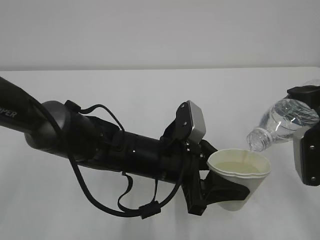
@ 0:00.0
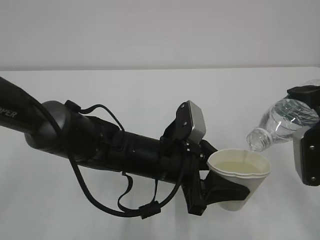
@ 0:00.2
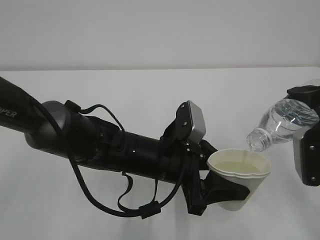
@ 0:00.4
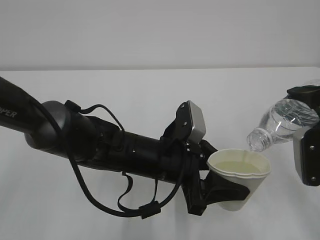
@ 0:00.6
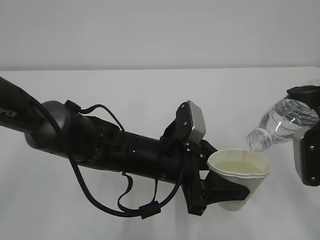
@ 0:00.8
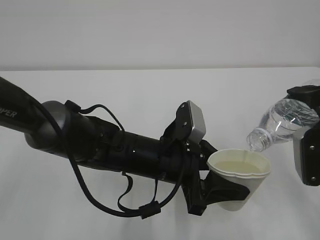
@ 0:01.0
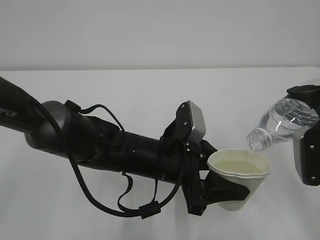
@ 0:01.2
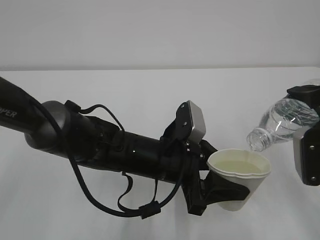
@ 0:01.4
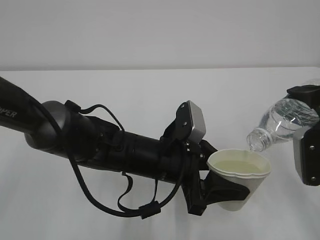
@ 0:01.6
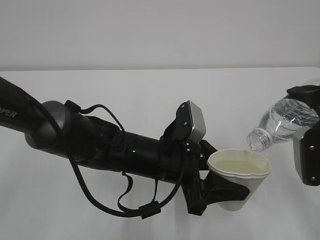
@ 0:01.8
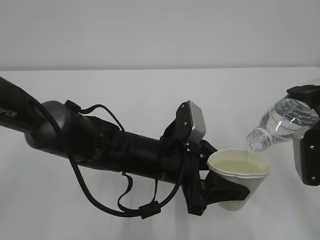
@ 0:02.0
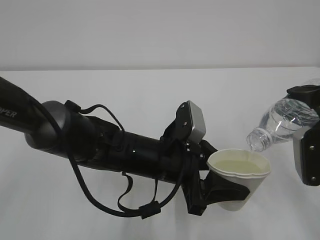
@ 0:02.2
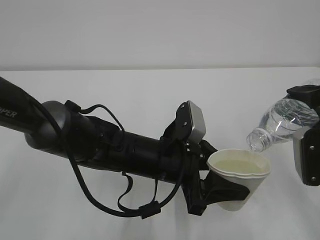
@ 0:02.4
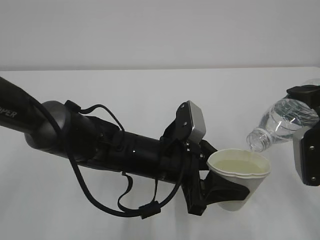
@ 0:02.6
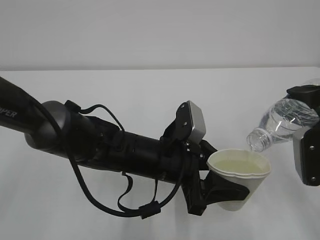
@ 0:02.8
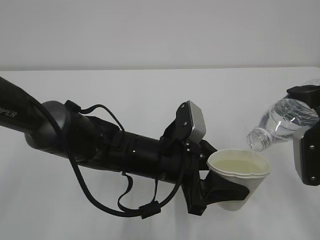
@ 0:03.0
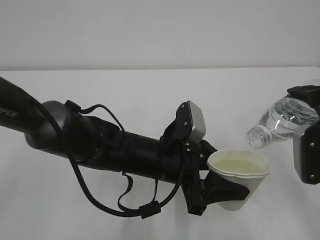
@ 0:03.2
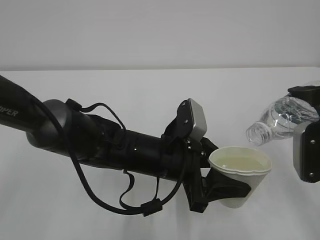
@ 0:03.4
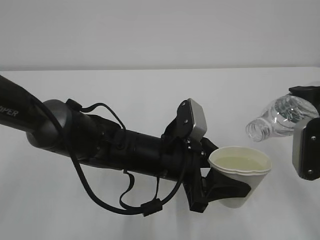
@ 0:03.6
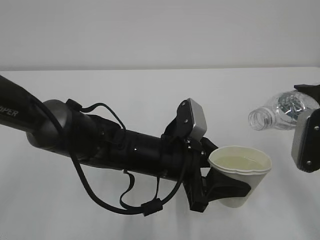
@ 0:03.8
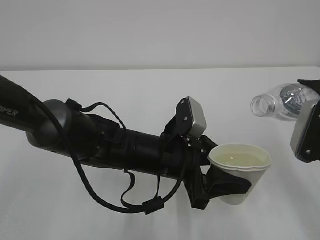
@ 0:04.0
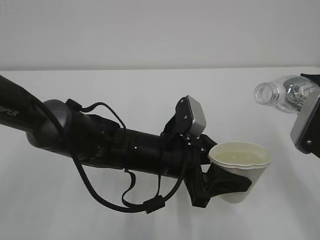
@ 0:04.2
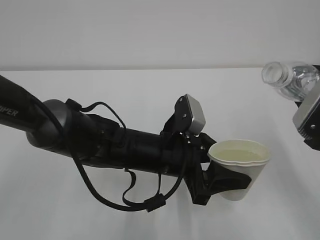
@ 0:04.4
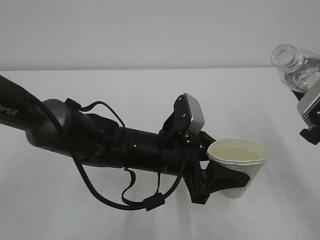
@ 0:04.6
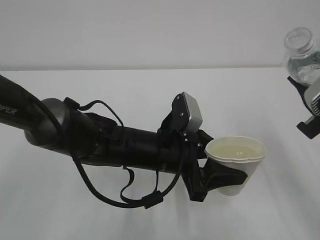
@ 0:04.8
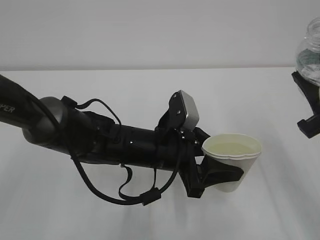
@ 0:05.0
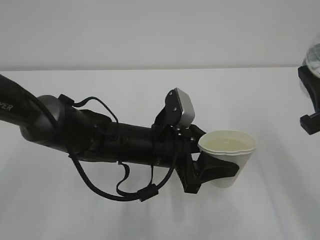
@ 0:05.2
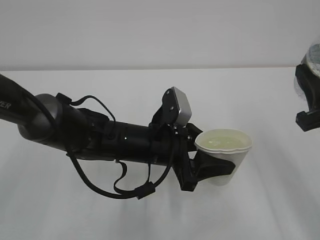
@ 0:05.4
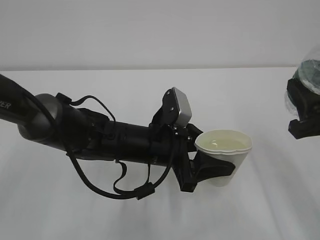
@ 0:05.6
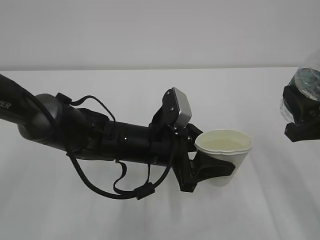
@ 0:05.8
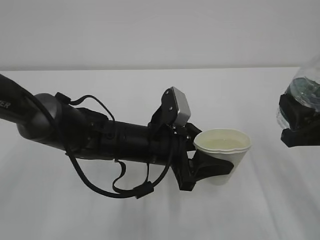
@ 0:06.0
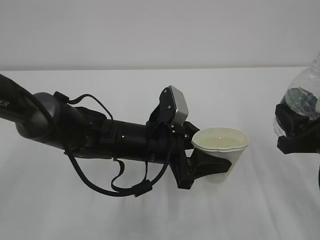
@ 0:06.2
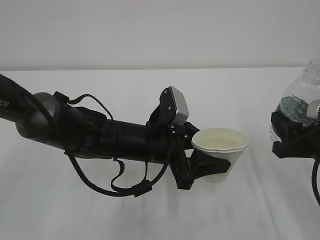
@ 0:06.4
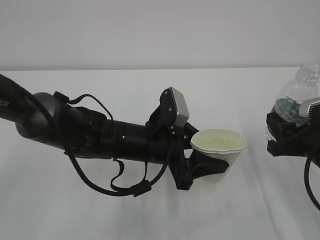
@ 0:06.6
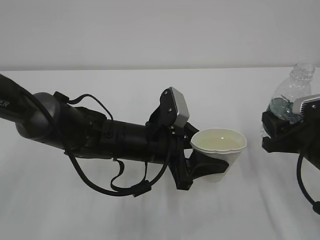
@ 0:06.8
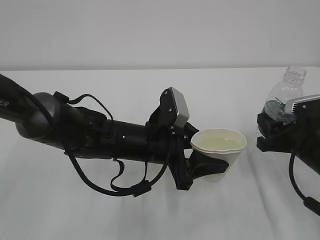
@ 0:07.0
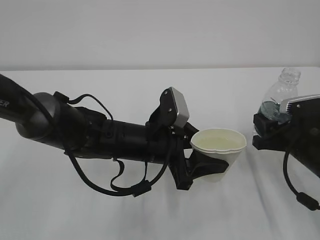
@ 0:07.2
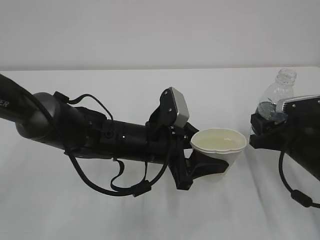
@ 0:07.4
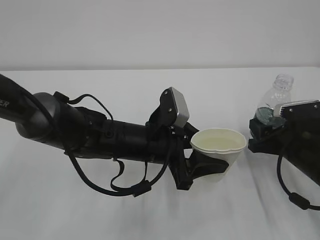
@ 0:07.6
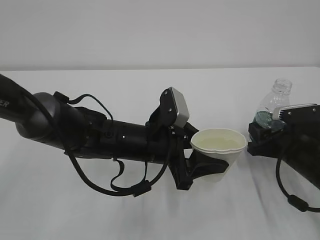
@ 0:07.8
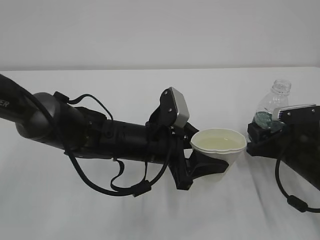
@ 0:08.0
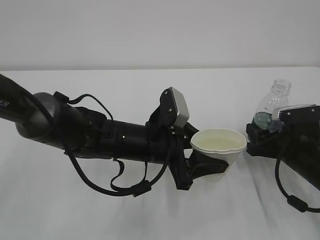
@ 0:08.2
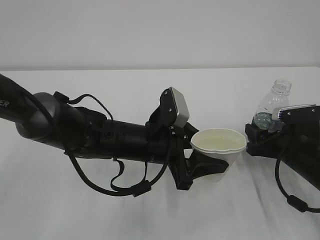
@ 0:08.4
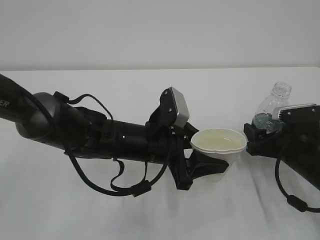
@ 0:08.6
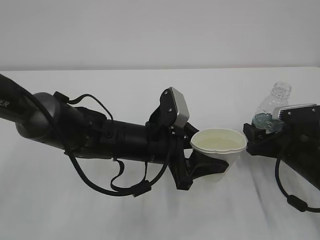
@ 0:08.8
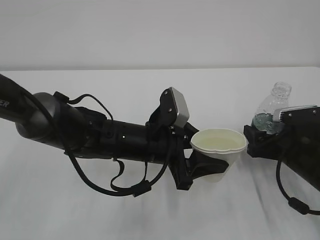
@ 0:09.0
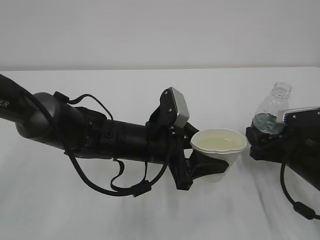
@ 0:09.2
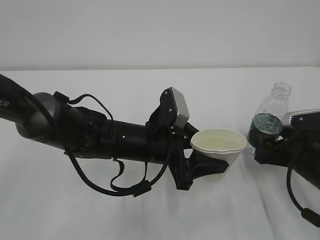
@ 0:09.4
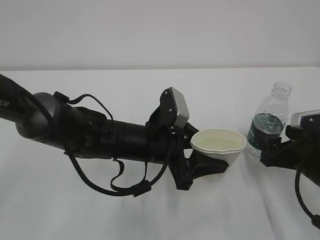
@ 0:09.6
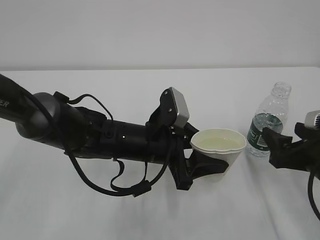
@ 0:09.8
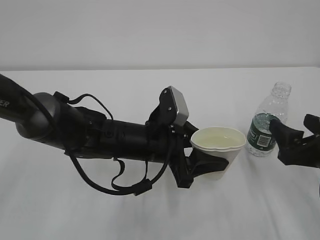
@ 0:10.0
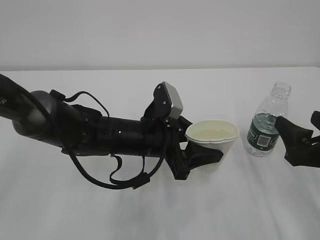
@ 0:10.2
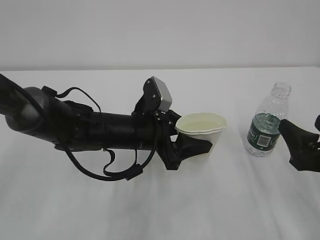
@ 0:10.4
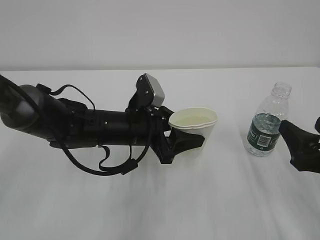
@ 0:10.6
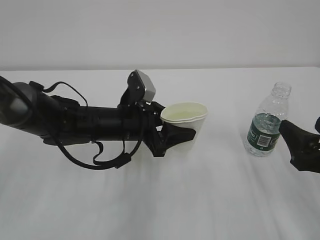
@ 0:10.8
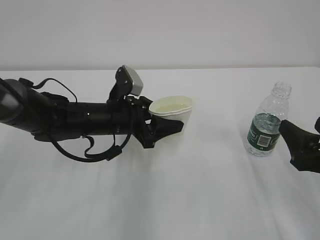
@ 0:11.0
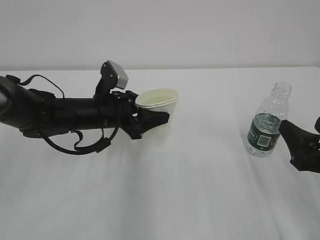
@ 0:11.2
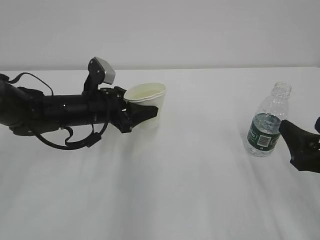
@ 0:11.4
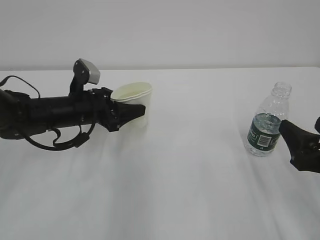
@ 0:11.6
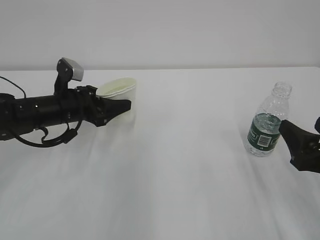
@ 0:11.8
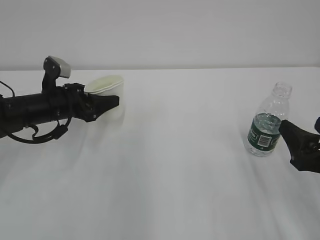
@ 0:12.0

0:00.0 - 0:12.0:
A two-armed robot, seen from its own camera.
0:00.0 - 0:03.0: The two grippers keep their place.
0:06.0 - 0:07.6: The right gripper is displaced downward and forward by approximately 10 cm.
0:07.6 - 0:09.0: The right gripper opens its fingers.
0:09.0 - 0:10.4: The right gripper heads backward and upward, covering about 10 cm.
0:10.4 - 0:12.0: The left gripper moves to the left and forward, roughly 20 cm.

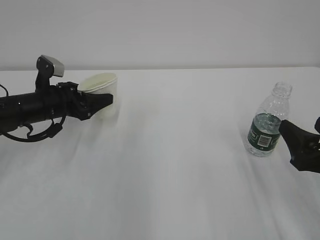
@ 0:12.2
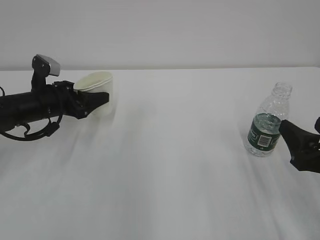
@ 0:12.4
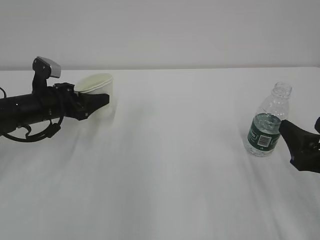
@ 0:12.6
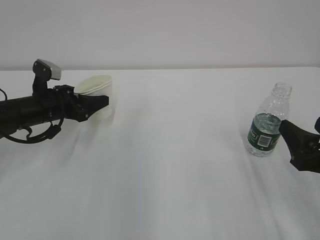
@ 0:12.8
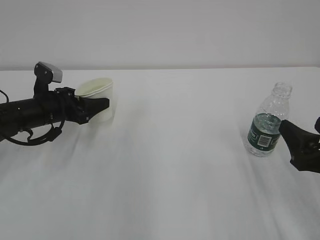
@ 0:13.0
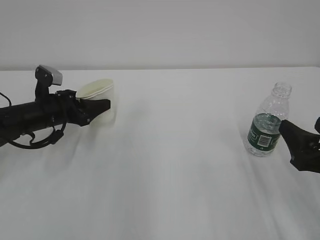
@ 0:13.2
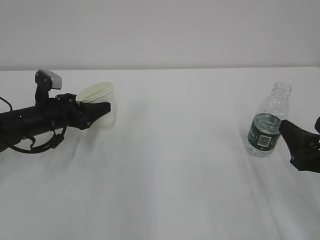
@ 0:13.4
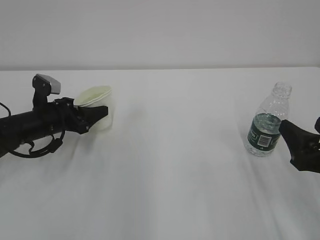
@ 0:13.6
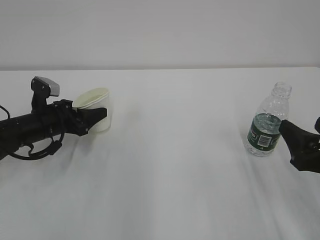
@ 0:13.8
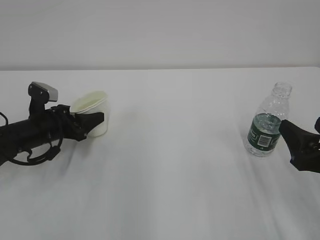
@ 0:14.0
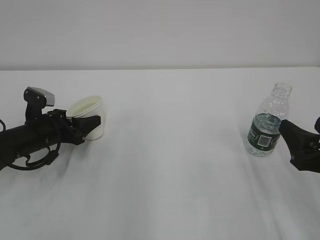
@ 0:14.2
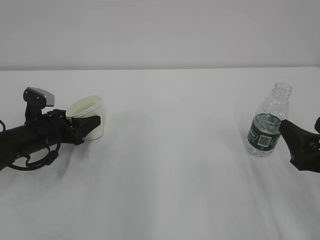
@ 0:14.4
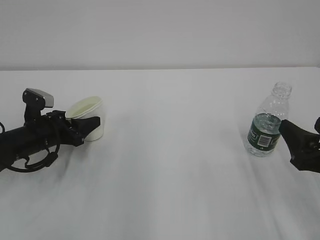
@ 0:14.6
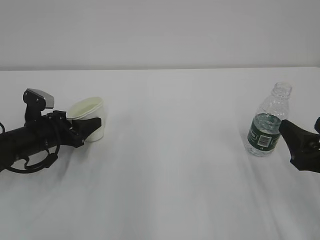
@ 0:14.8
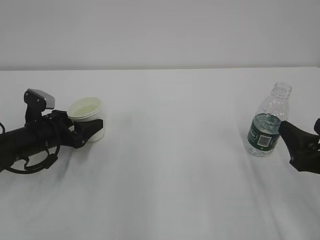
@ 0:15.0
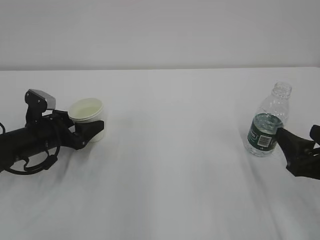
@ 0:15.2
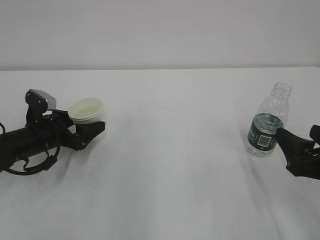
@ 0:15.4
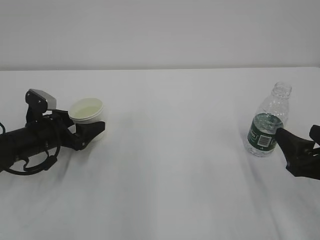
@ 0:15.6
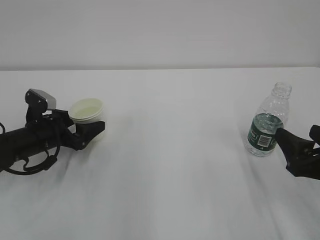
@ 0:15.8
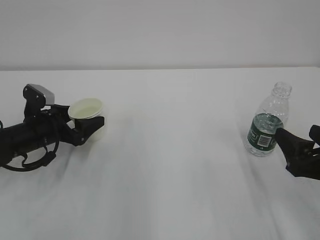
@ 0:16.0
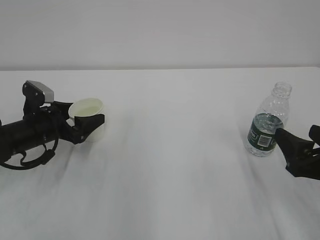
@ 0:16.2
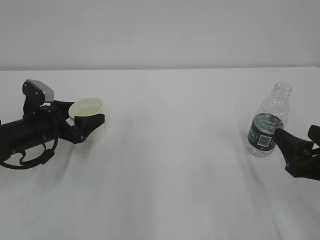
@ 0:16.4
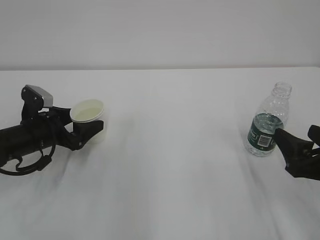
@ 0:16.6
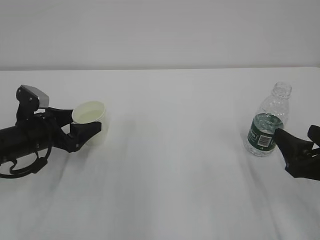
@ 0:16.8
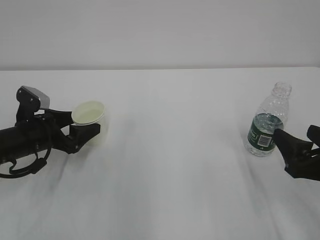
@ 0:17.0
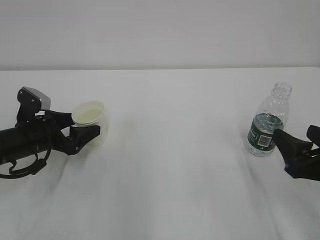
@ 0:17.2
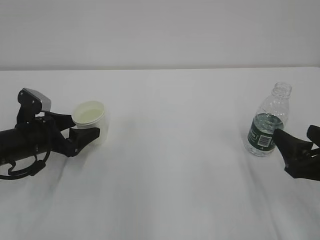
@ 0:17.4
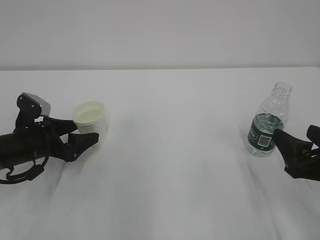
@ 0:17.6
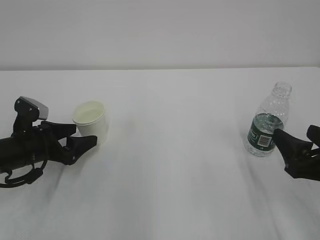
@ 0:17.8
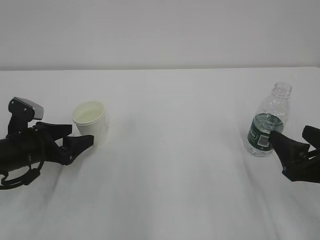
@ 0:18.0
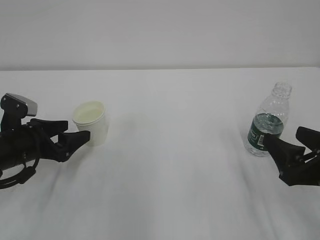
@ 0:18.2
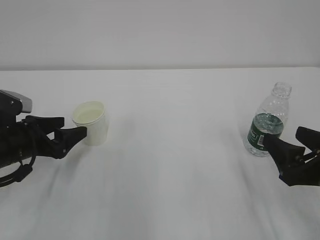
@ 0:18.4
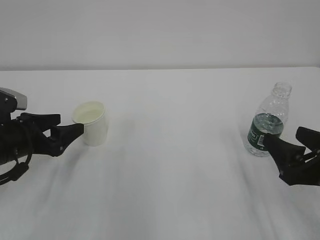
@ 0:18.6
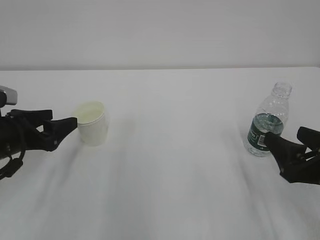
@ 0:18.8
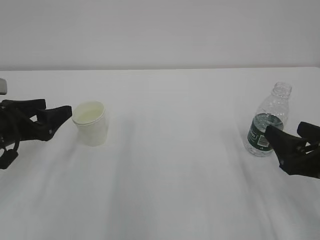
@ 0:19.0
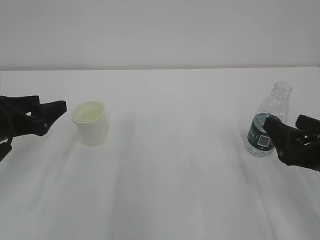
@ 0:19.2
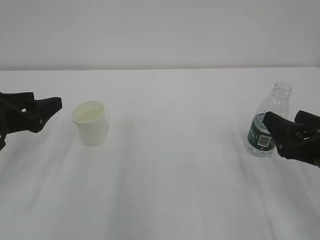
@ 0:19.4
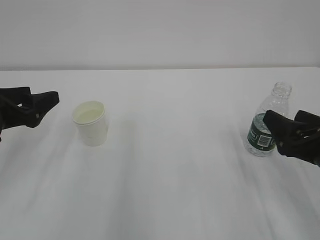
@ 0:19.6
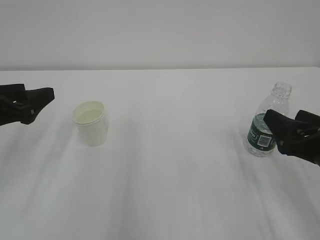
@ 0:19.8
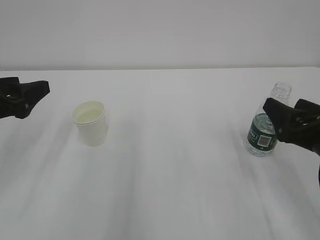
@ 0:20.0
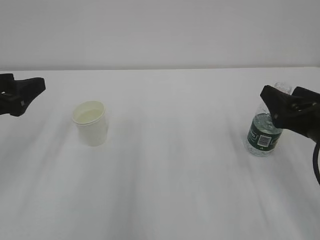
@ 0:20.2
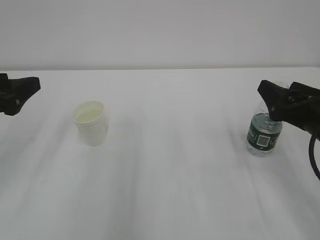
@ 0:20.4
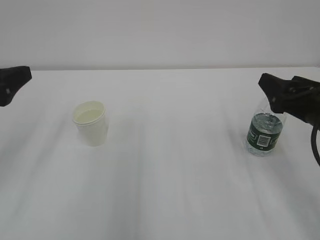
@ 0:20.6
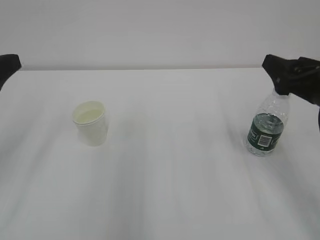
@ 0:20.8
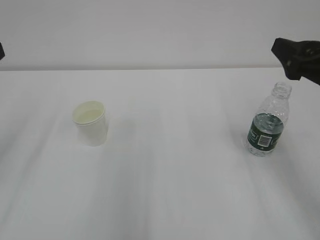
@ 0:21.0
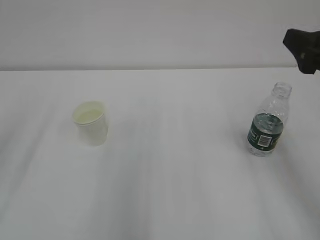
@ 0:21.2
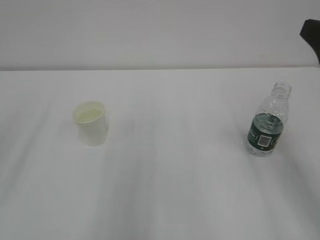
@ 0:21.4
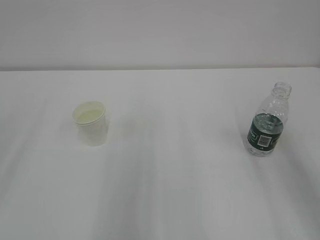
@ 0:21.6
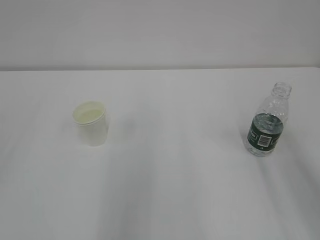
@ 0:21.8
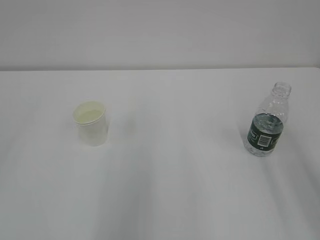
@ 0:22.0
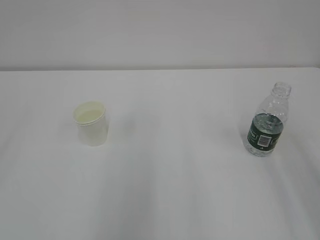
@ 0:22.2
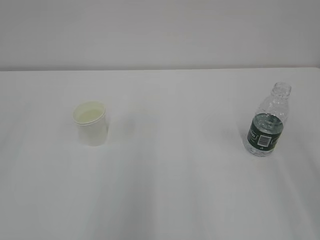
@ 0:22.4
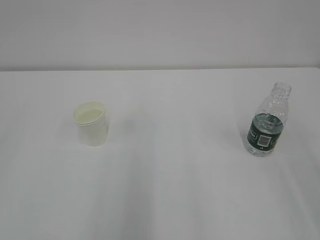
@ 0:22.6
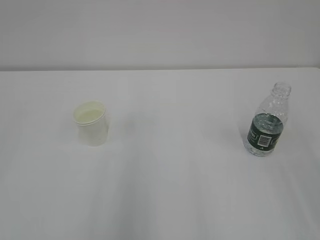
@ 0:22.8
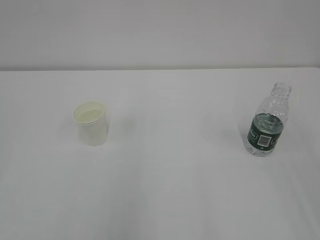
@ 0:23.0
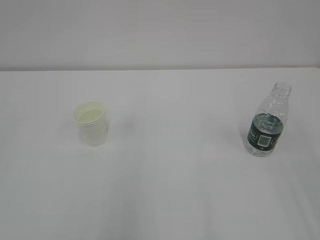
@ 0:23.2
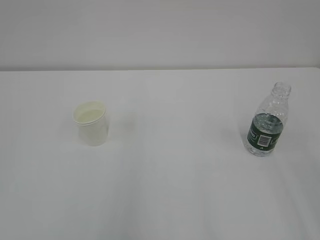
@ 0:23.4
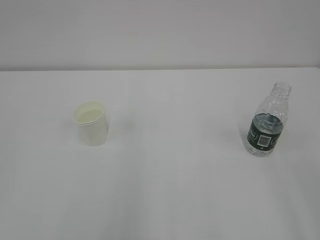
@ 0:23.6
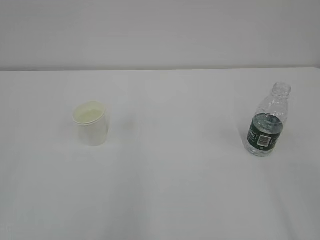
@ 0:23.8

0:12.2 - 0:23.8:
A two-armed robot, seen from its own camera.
0:12.2 - 0:13.6: The grippers move only a little.
0:13.6 - 0:15.0: The left gripper opens up.
0:15.0 - 0:18.0: The grippers move only a little.
0:18.0 - 0:19.4: The left gripper travels upward by approximately 10 cm.
0:19.4 - 0:21.0: The right gripper goes about 10 cm upward; the left gripper is displaced upward and backward by approximately 10 cm.
0:21.0 - 0:22.4: The right gripper travels backward and upward by about 20 cm.
